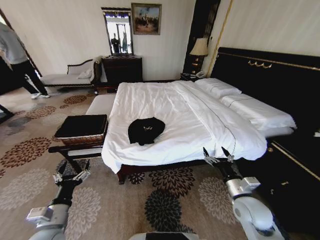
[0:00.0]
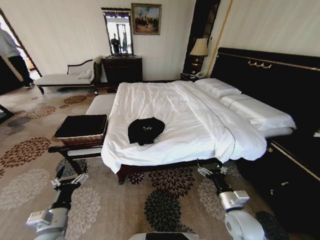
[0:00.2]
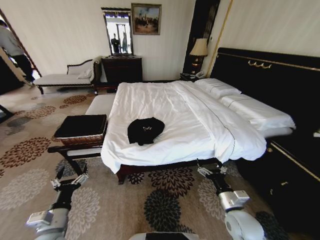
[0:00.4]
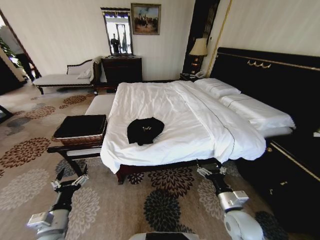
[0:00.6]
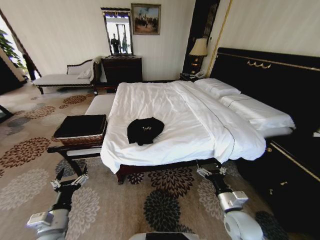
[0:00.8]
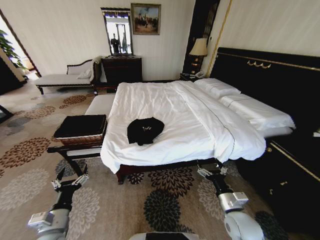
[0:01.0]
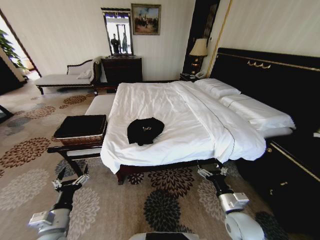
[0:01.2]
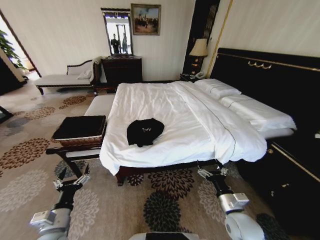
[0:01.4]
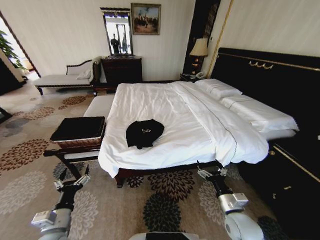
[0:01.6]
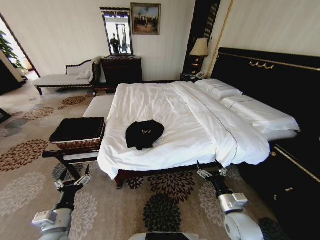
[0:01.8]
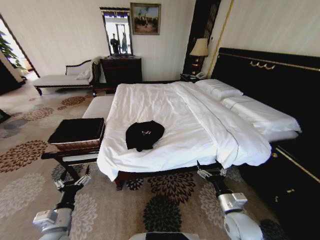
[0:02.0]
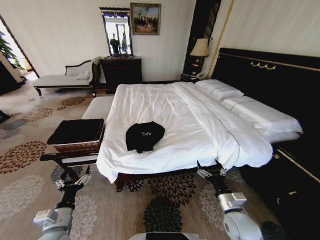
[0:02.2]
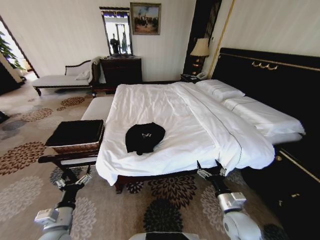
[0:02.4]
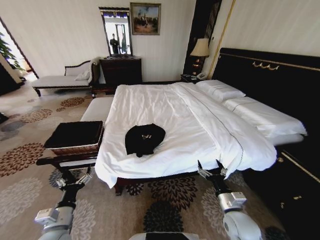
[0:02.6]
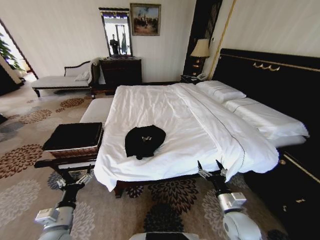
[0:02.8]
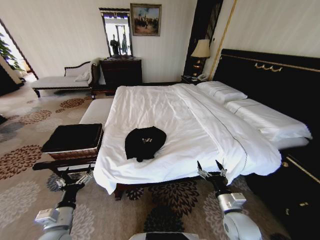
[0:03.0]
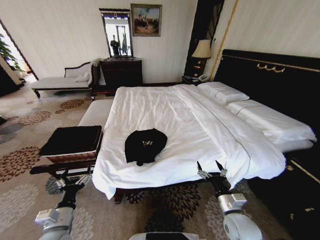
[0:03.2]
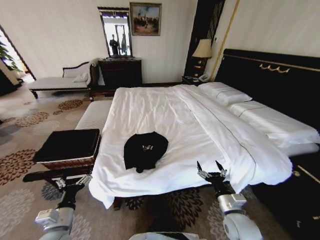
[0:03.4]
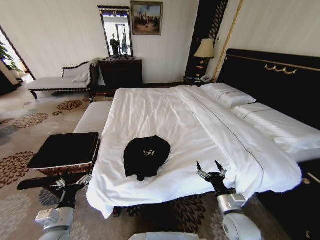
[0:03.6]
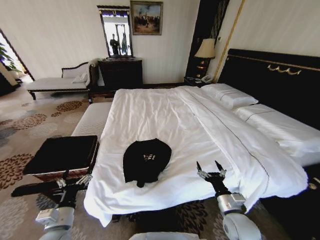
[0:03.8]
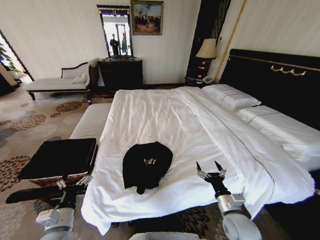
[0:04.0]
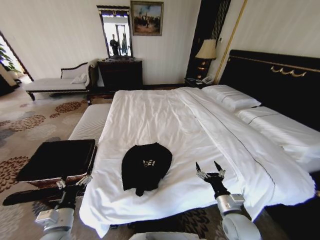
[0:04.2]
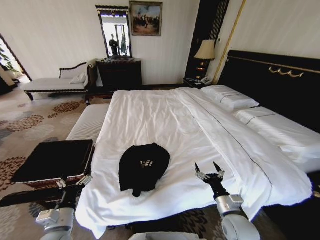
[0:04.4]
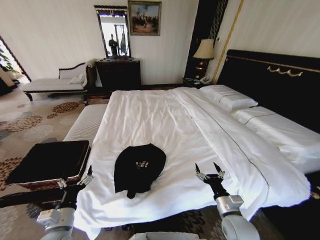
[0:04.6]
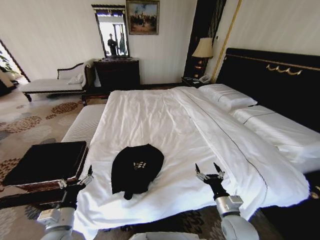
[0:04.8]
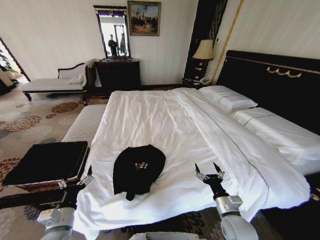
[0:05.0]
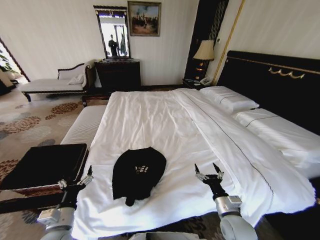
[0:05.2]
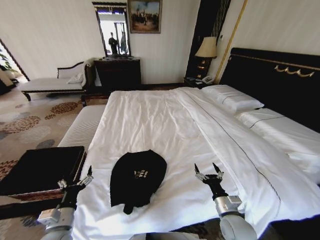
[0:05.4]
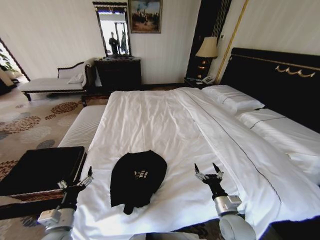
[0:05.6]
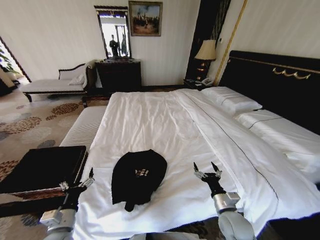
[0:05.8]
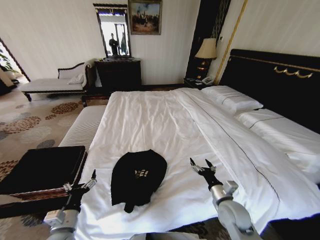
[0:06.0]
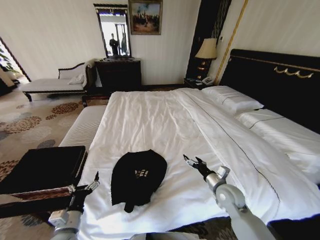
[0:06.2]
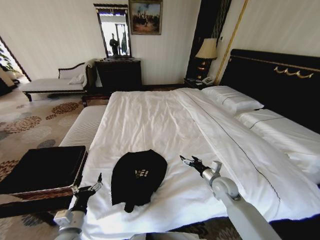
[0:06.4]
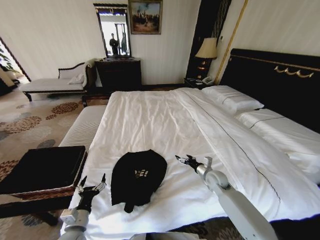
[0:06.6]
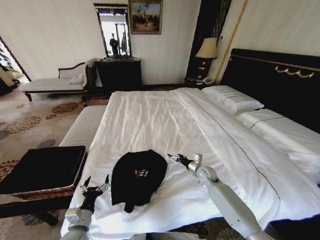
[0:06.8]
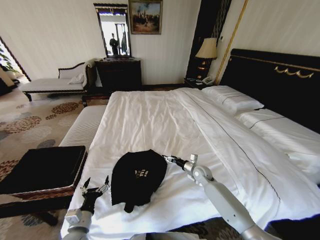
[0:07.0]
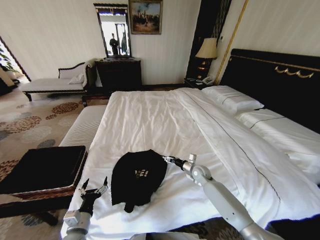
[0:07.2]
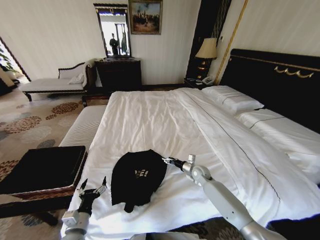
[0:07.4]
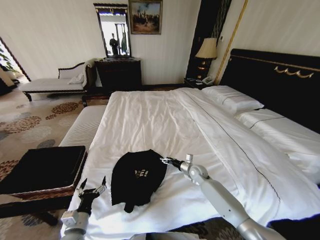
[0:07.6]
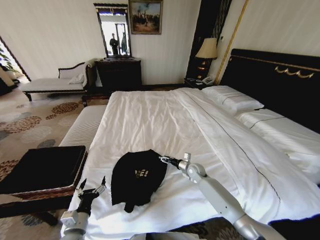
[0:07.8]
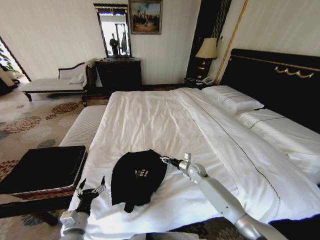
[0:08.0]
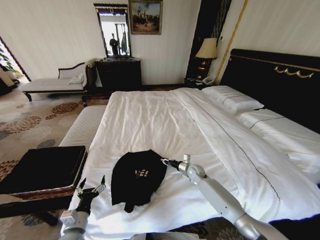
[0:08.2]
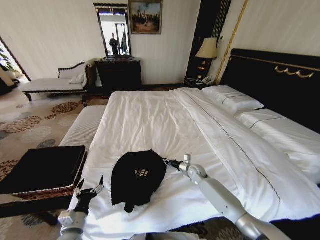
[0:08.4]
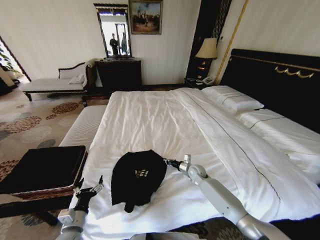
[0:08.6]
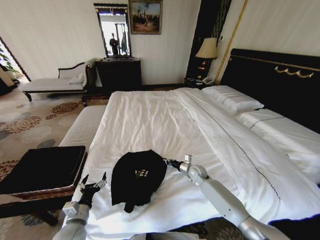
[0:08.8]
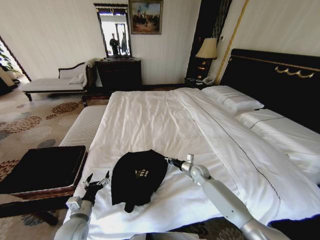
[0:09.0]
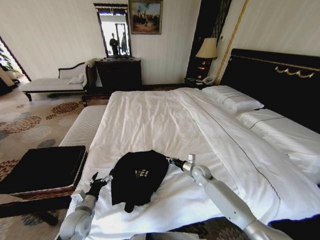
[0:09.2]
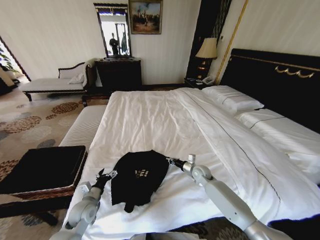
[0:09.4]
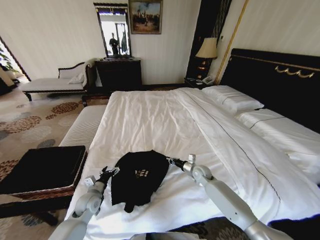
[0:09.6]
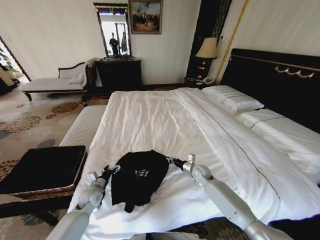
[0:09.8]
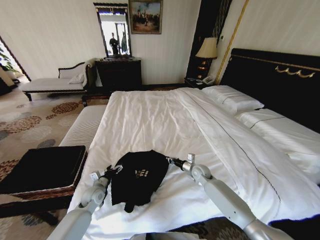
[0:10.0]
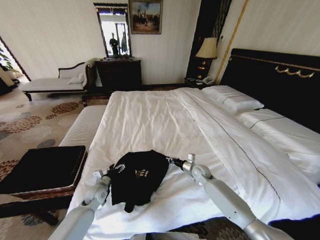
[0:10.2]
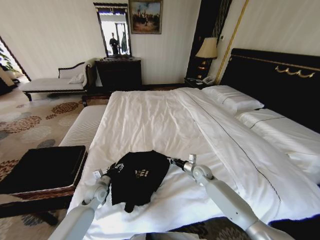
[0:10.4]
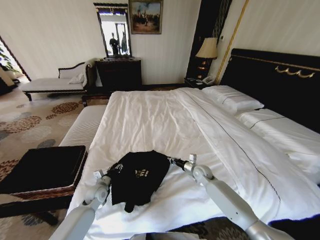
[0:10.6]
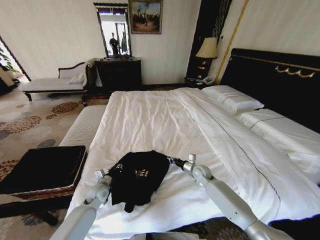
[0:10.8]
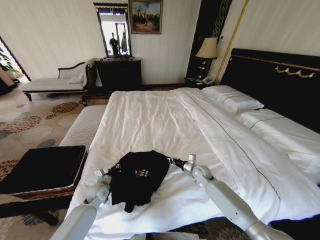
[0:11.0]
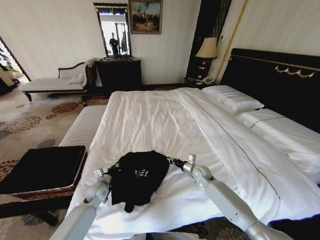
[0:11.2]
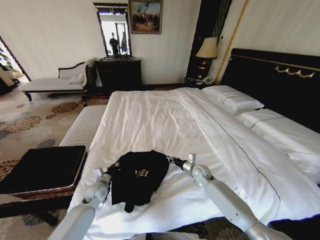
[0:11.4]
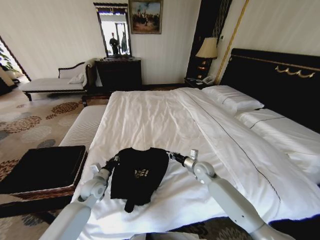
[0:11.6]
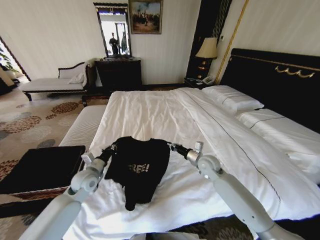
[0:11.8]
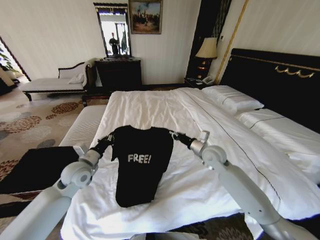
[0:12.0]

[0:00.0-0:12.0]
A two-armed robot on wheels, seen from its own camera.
Task of the whole recording: Fold the clothes on the bed and place them into the basket.
0:04.4 to 0:06.0: The right gripper ends up approximately 5 cm from where it was.
0:06.0 to 0:07.6: The right gripper is displaced forward and downward by some 20 cm.
0:07.6 to 0:09.0: The right gripper closes up.
0:09.0 to 0:10.4: The left gripper heads forward, covering some 15 cm.
0:10.4 to 0:12.0: Both grippers move upward, about 20 cm. The left gripper closes its fingers.

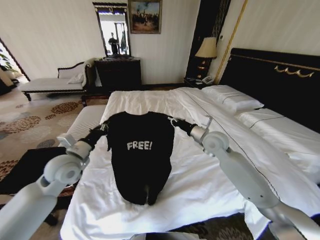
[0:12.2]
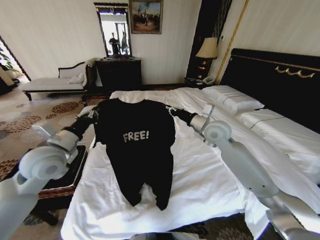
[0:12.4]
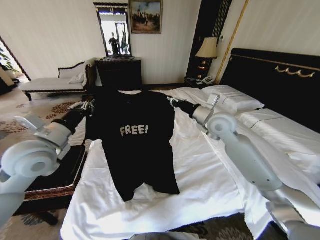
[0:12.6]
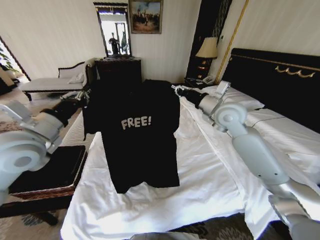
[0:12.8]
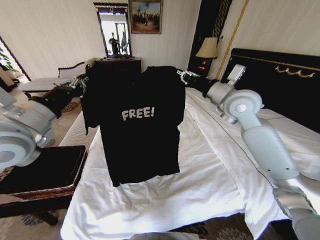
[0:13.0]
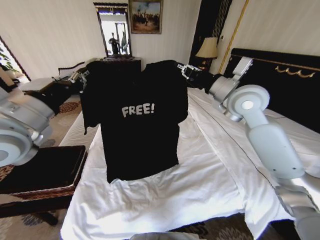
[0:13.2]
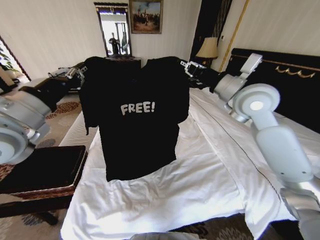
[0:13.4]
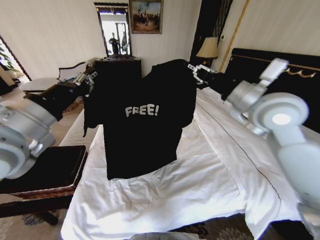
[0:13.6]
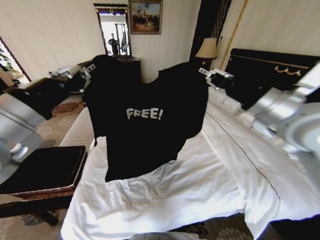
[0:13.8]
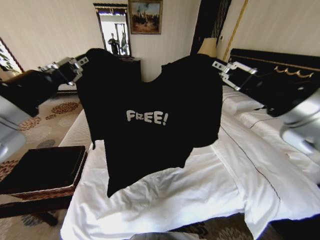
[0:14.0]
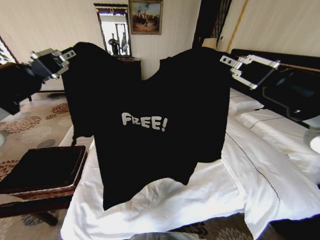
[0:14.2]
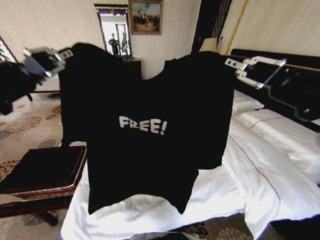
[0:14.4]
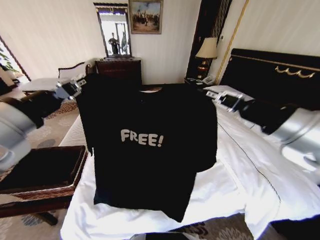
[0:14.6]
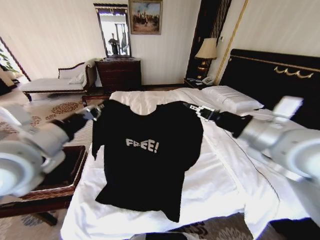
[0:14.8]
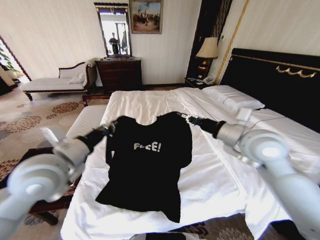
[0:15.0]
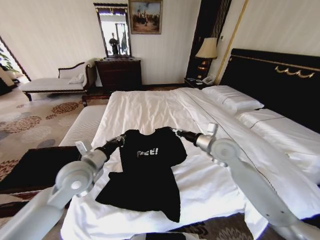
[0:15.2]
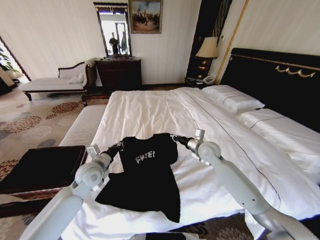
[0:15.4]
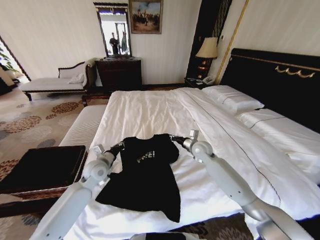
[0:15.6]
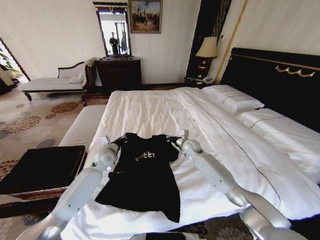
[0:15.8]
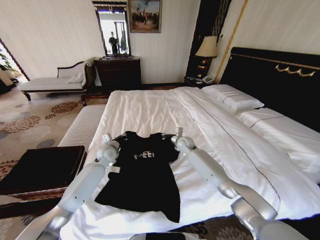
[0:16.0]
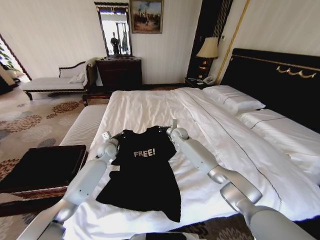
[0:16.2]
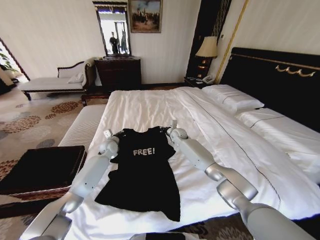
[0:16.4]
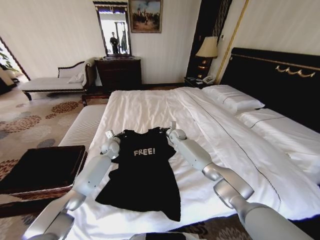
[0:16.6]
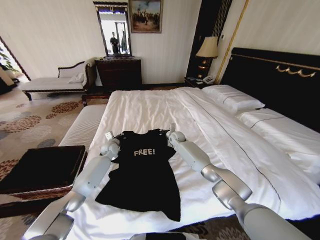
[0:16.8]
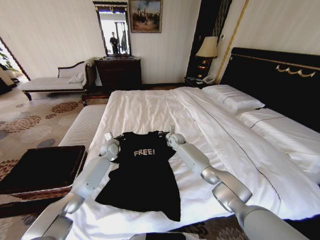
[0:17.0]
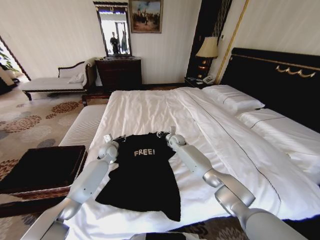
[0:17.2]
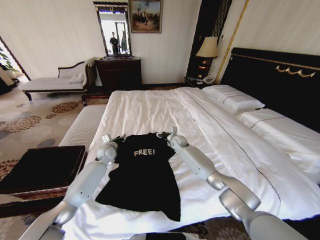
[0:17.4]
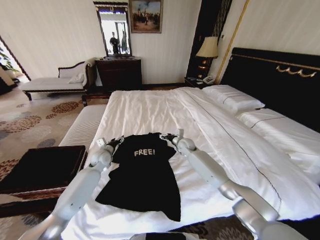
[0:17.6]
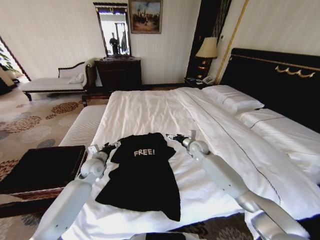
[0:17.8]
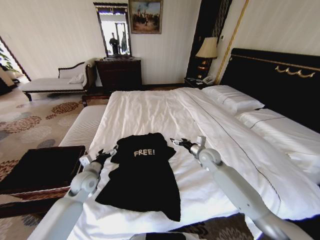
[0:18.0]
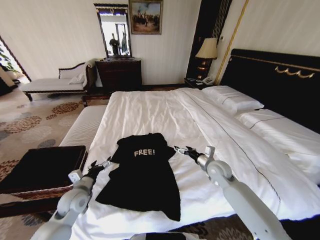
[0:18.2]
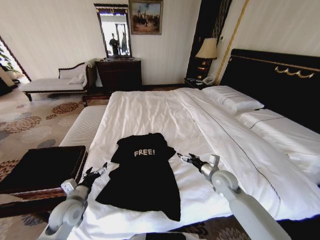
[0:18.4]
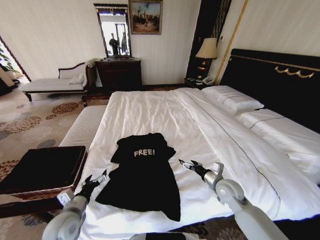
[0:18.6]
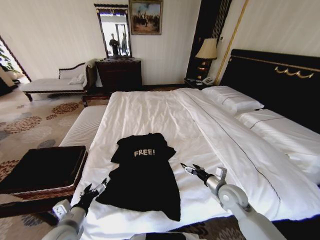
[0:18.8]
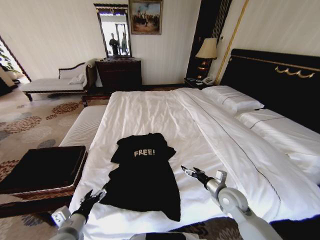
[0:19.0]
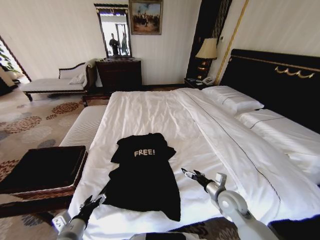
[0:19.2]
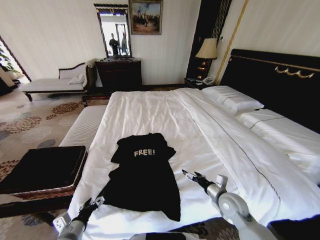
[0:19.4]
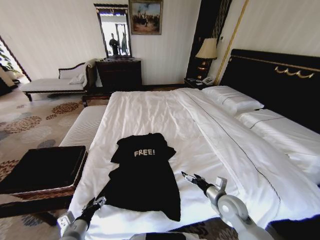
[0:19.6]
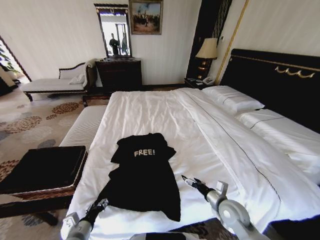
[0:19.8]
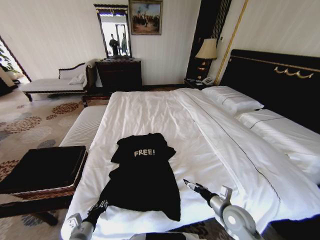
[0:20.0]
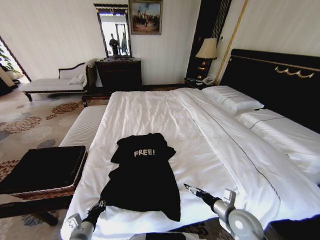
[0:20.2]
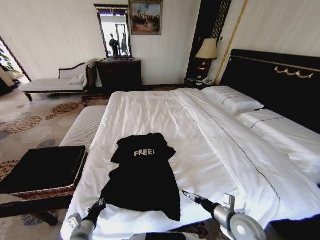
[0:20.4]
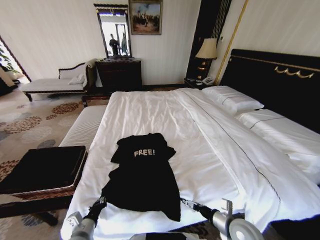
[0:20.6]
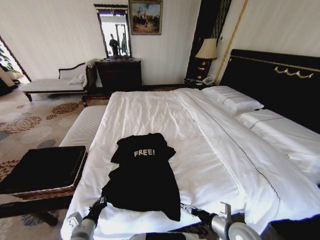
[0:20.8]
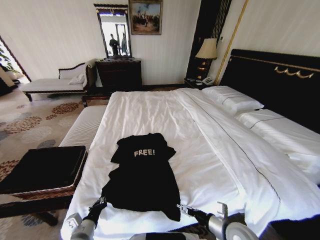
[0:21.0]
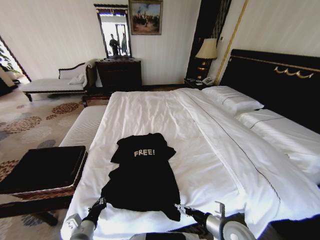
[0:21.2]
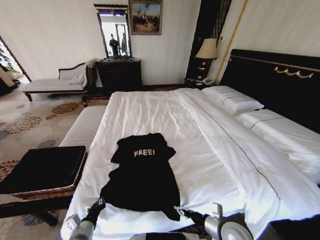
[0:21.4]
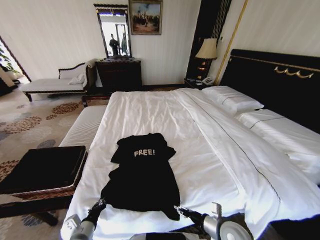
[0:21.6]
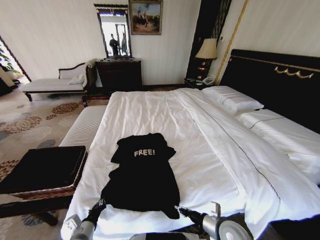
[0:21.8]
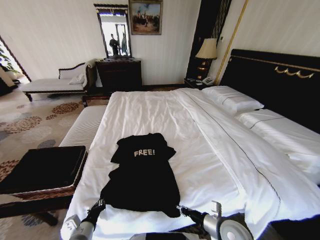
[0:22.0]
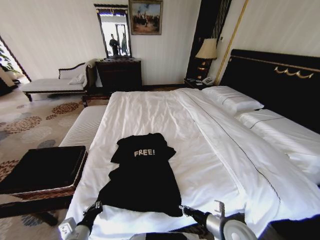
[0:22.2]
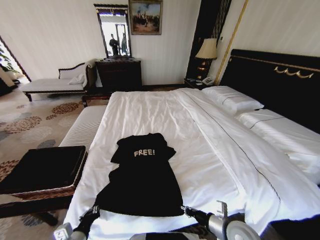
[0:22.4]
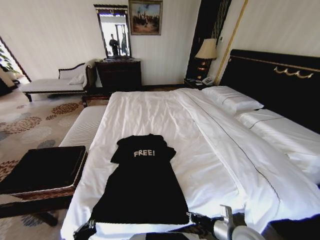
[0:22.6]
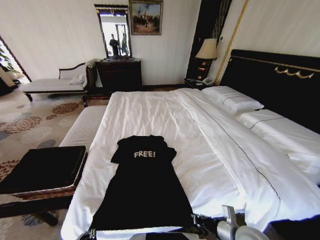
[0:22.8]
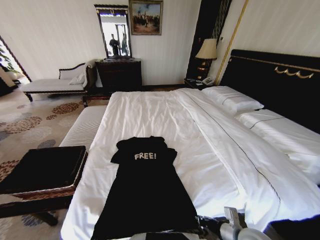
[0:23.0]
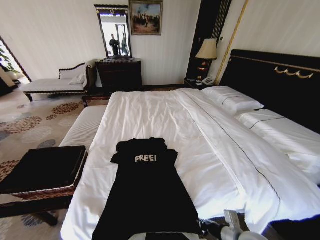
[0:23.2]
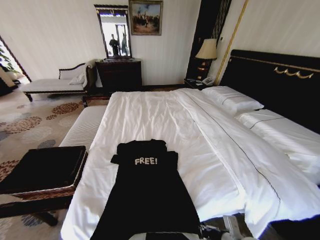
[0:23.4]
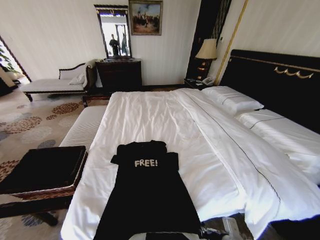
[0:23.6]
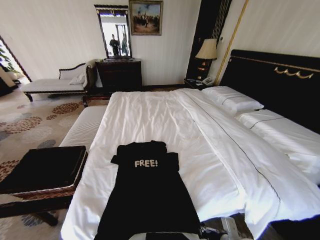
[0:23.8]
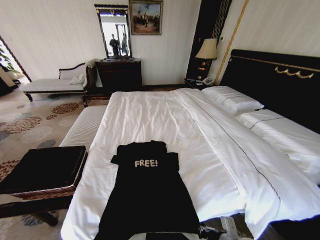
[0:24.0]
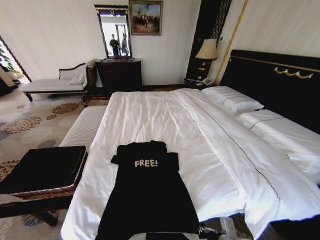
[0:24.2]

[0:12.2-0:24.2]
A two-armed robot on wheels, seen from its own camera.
Task of the whole recording: Fold the clothes on the bed and place them into the basket.
0:12.2 to 0:13.8: The two grippers go about 25 cm upward and backward.
0:13.8 to 0:15.2: The right gripper moves downward and forward, approximately 20 cm, while the left gripper moves downward, some 20 cm.
0:15.2 to 0:16.6: The left gripper moves forward and downward, roughly 30 cm; the right gripper is displaced forward, downward and to the left by approximately 30 cm.
0:16.6 to 0:18.2: The right gripper moves backward and to the right, approximately 30 cm, and opens its fingers. Meanwhile the left gripper moves backward, approximately 25 cm, and opens.
0:18.2 to 0:19.8: Both grippers move backward, about 15 cm. The left gripper closes its fingers.
0:19.8 to 0:21.2: The right gripper is displaced backward by approximately 5 cm. Meanwhile the left gripper closes up.
0:21.2 to 0:22.6: The right gripper closes its fingers, while the left gripper goes about 5 cm backward.
0:22.6 to 0:24.2: The left gripper moves backward, some 10 cm.
